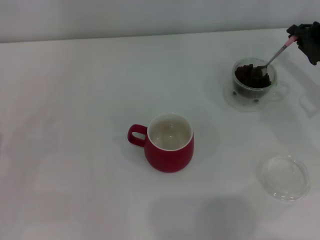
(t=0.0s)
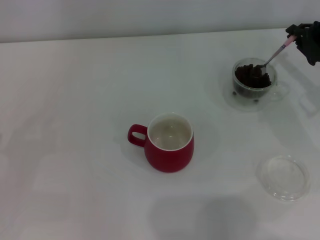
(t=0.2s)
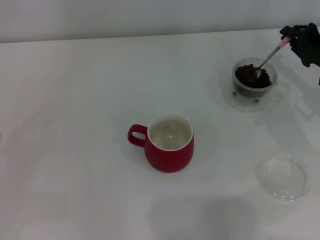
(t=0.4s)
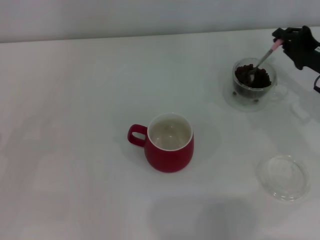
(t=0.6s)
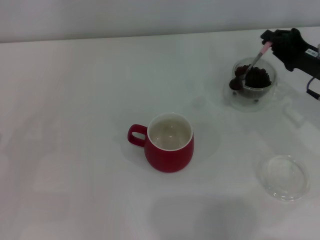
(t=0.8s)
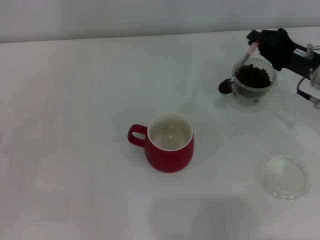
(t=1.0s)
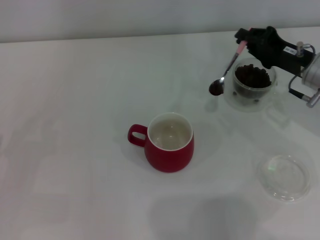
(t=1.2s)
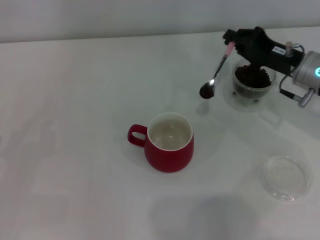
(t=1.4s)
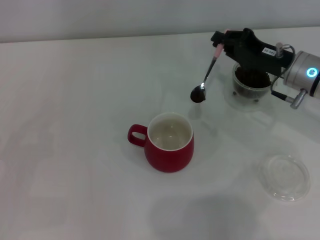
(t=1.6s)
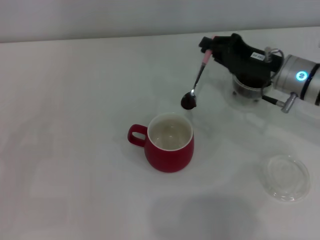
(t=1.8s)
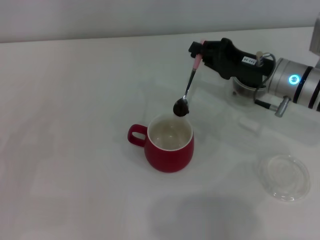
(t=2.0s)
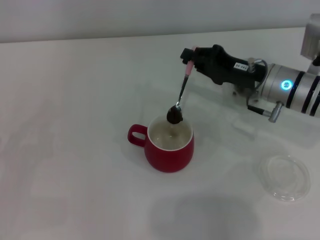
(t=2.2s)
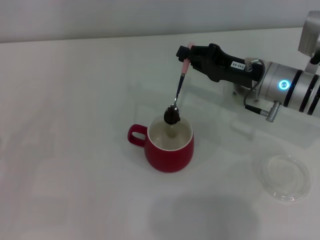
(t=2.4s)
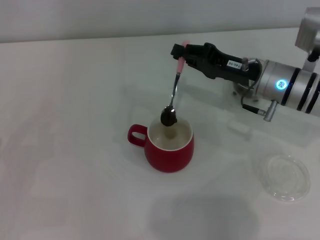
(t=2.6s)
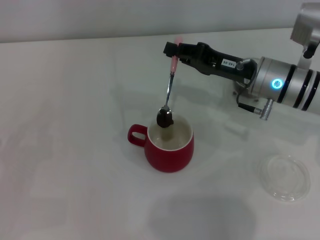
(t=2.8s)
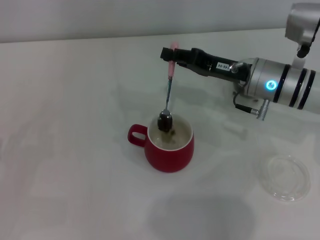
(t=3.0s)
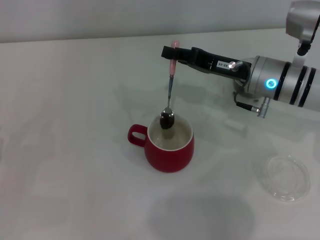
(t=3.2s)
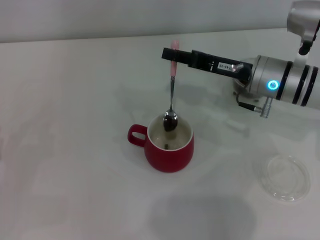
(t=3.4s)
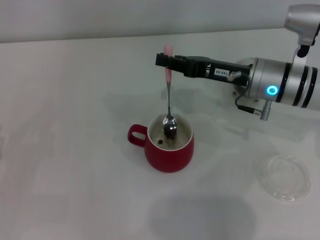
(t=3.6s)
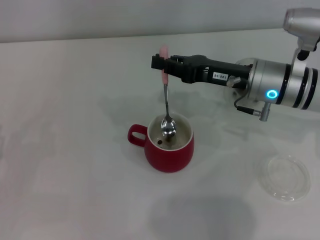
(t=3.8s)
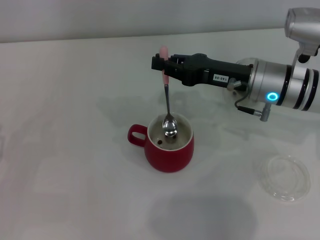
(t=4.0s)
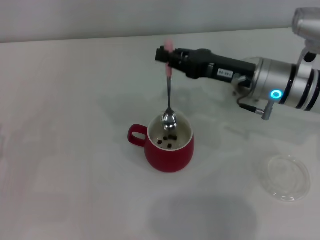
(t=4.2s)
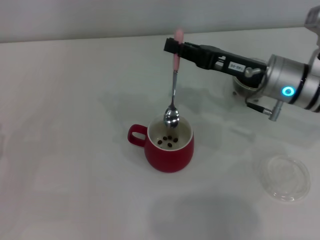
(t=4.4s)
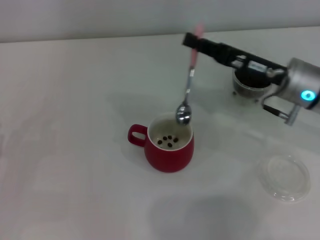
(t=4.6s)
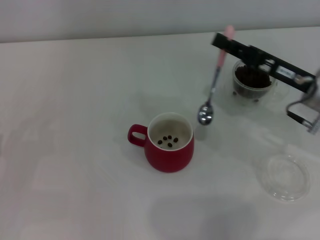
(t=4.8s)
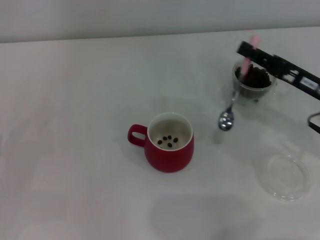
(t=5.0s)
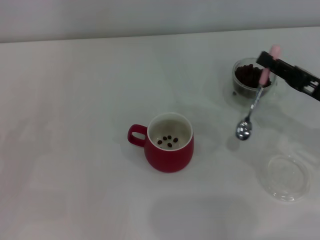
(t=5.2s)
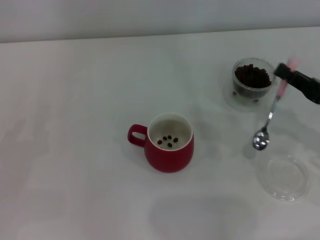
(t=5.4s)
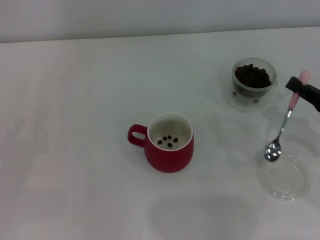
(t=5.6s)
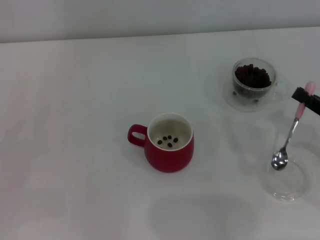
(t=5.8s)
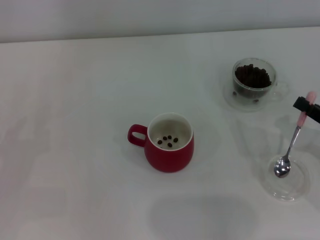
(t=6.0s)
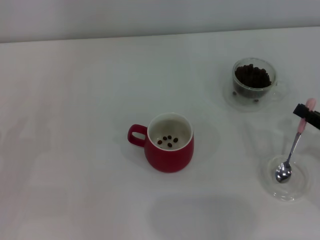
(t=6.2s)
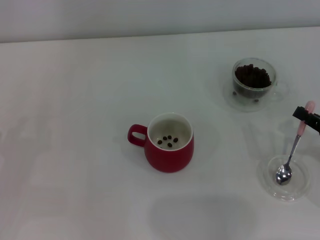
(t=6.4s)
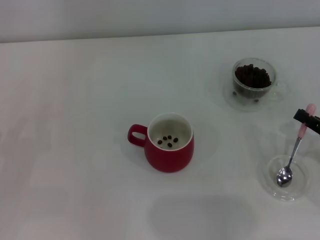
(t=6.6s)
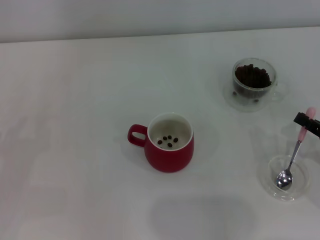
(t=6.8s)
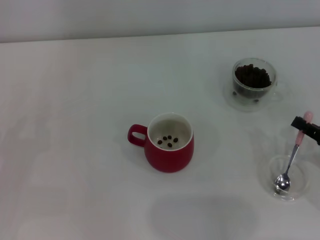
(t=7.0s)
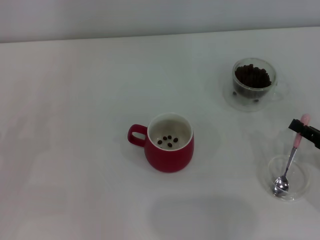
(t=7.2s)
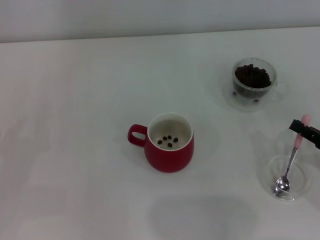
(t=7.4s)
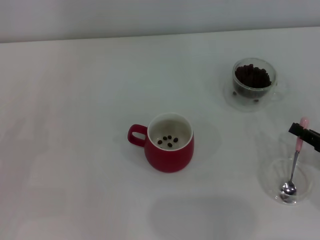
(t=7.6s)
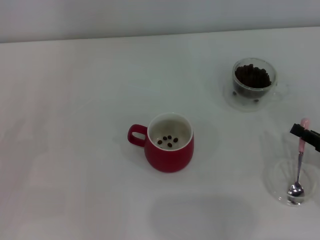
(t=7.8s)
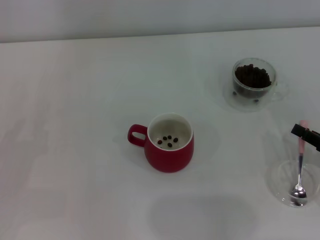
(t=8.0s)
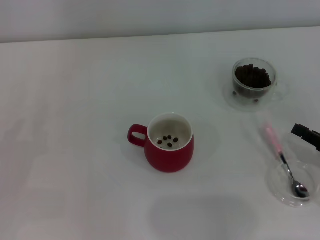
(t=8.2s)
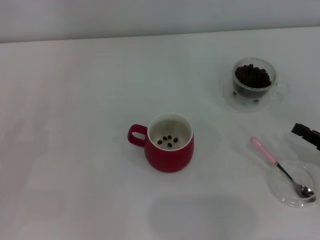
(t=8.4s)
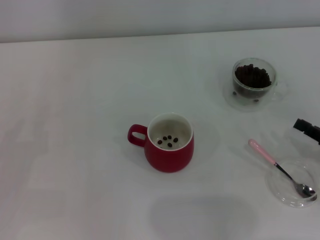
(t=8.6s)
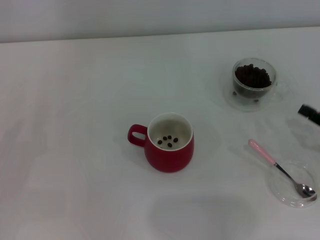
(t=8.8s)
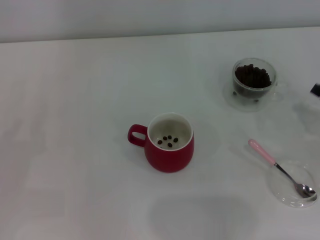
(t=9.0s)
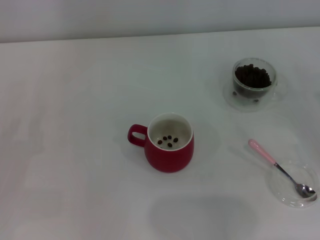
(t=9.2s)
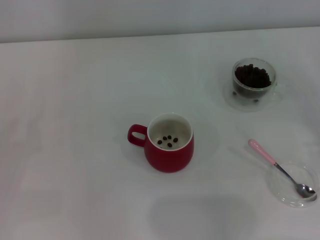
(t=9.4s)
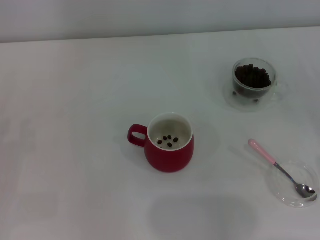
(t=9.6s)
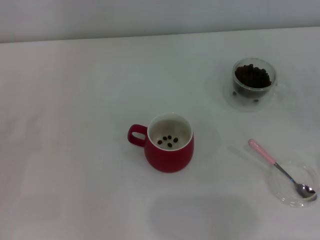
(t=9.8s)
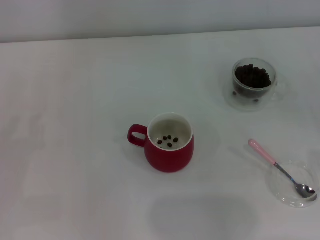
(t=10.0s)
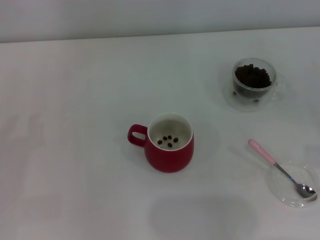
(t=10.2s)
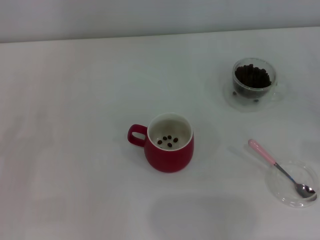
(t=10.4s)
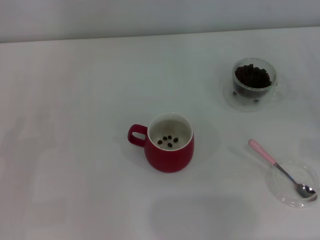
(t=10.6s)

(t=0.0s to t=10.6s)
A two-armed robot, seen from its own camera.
Task of the whole recording: Use a pink spoon to take out the coffee beans from the glass and pour them into the red cup.
Step, t=0.0s - t=4.2s: Scoop a spoonful of beans into the cup with the right gripper.
Step, t=4.6s - t=8.2s: Place the spoon back in its original place with the right gripper.
t=0.0s - t=1.6s: The right gripper shifts about 10 cm to the left.
t=1.6s - t=3.0s: The right gripper is displaced to the left by some 5 cm.
t=4.6s - t=6.0s: The right gripper heads to the right and backward, covering approximately 20 cm.
t=6.0s - t=9.0s: There are only small adjustments of the grippers.
